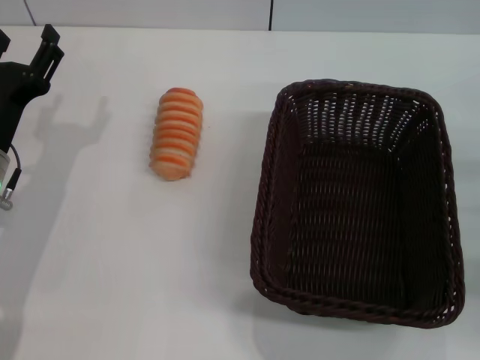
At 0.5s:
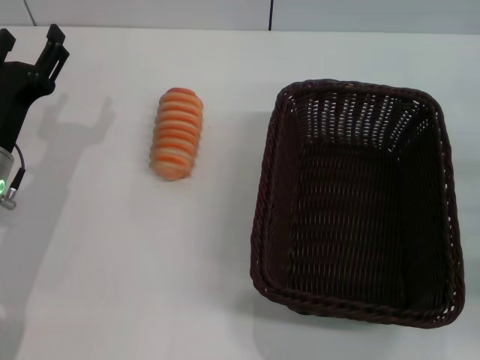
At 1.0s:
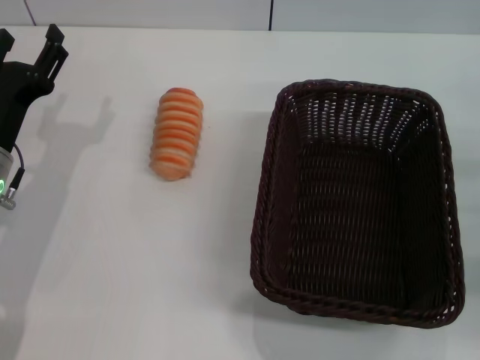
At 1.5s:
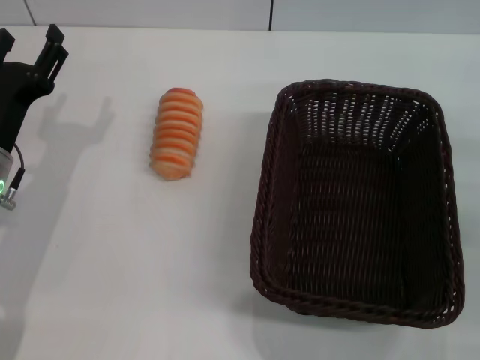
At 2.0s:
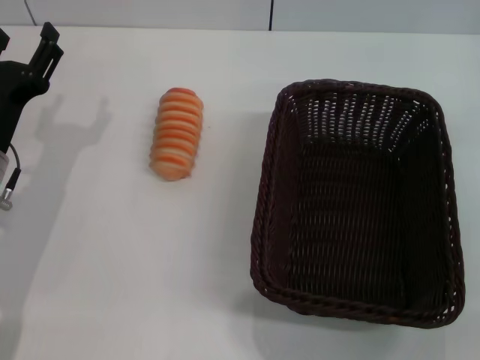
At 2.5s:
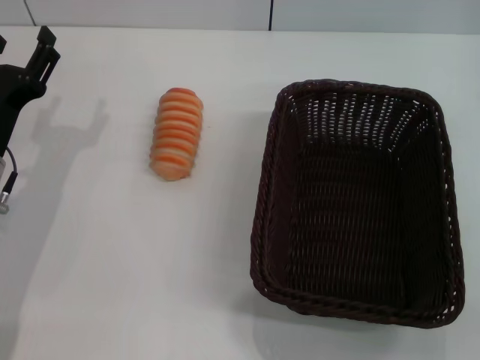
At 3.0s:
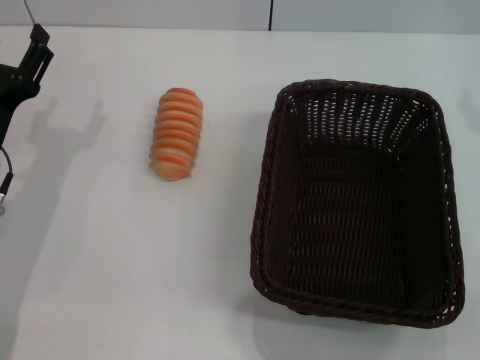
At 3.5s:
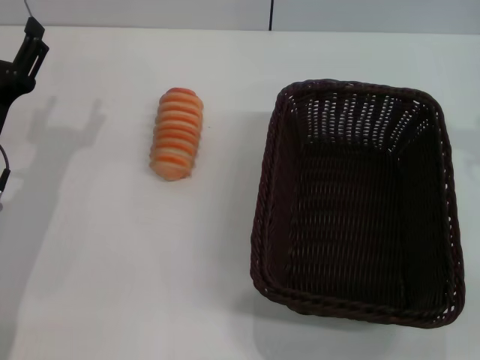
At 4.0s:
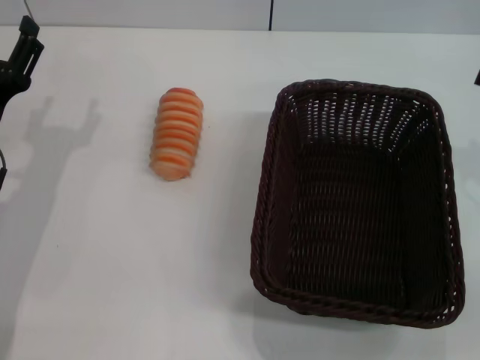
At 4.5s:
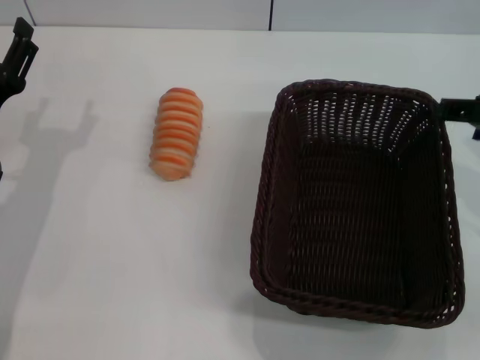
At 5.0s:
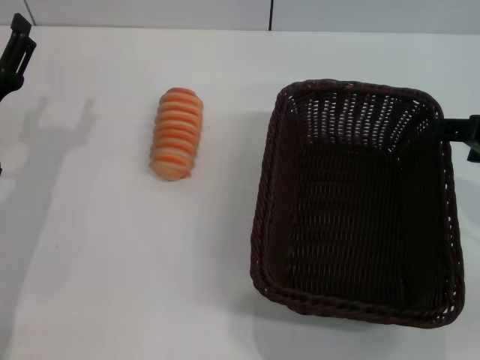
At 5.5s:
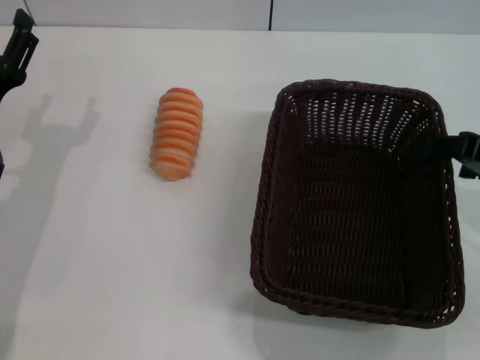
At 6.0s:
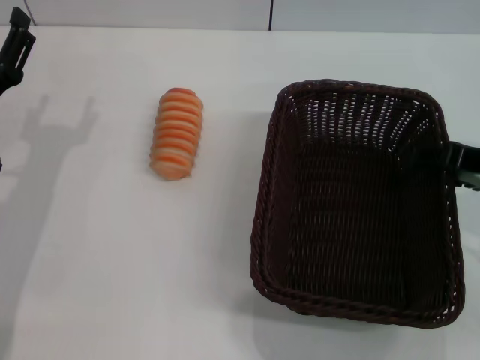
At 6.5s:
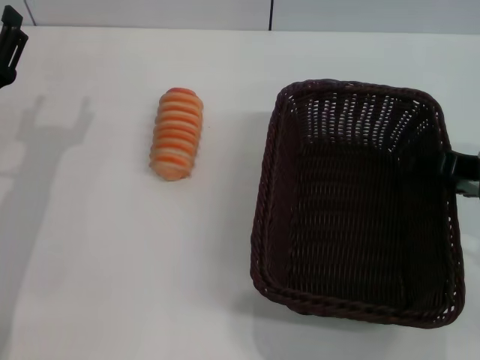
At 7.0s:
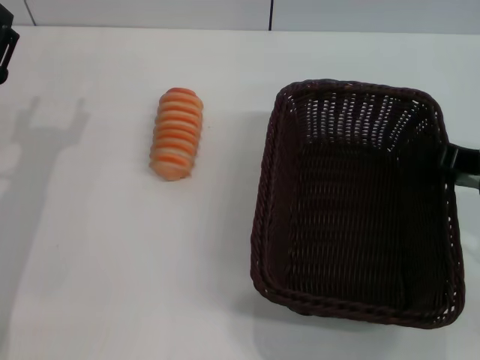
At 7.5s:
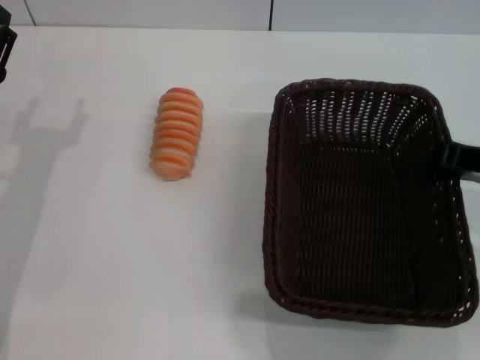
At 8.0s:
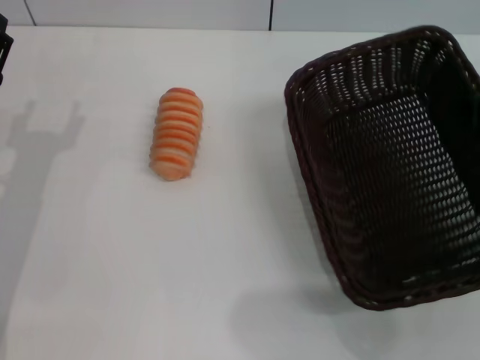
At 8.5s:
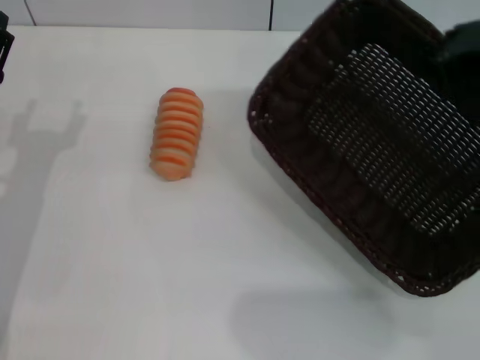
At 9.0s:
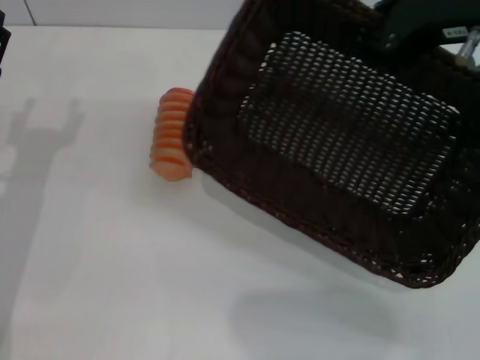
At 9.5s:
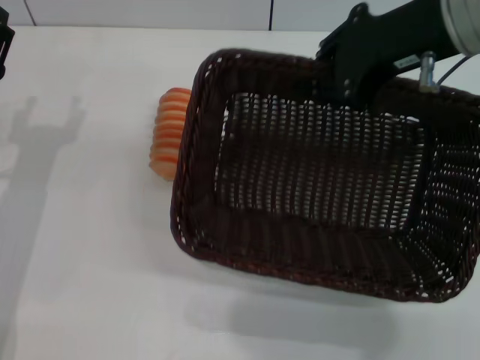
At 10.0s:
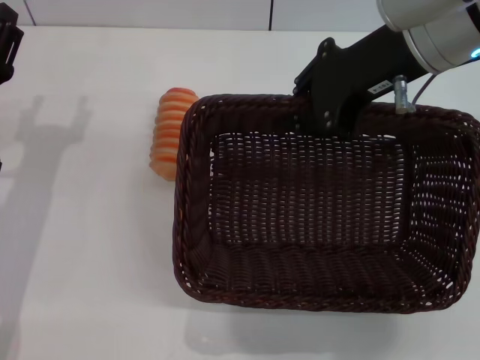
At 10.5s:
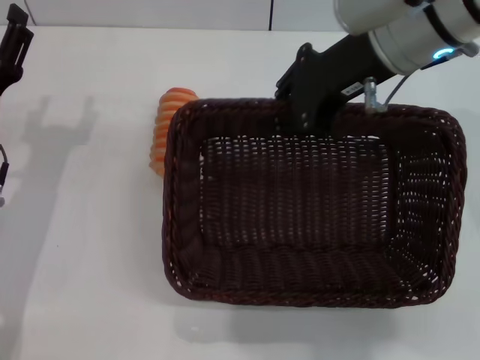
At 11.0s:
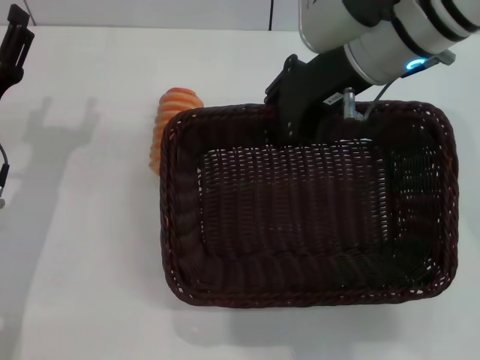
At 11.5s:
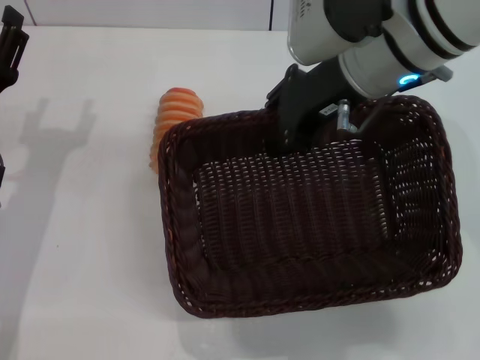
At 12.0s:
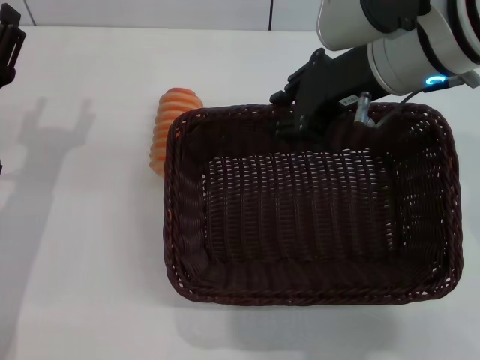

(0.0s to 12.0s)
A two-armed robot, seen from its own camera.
Step, 0.0s - 7.5s: Pick up the dark basket with the right gripper.
0.0s - 2.0s: The right gripper shifts roughly 15 cm upward and to the left.
4.0s - 6.0s: The right gripper is displaced downward by about 5 cm.
6.0s - 8.0s: The right gripper closes its fingers.
8.0s - 10.0s: The right gripper heads to the left, upward and forward, covering some 15 cm.
10.0s - 12.0s: The grippers move only a little.

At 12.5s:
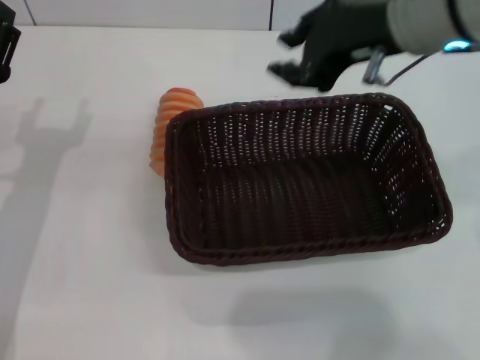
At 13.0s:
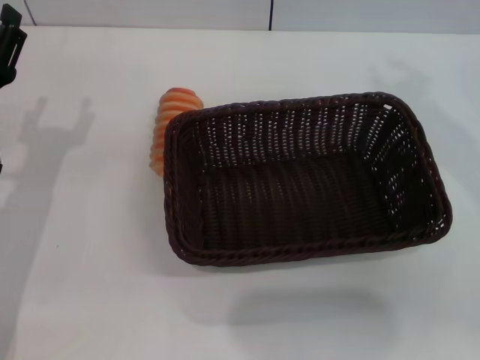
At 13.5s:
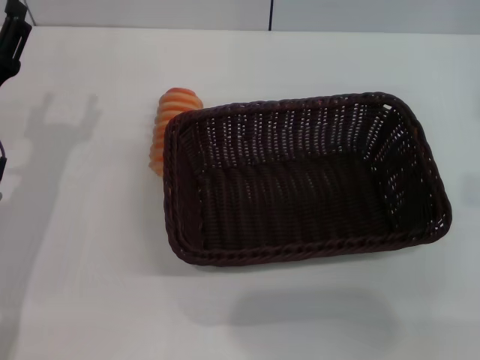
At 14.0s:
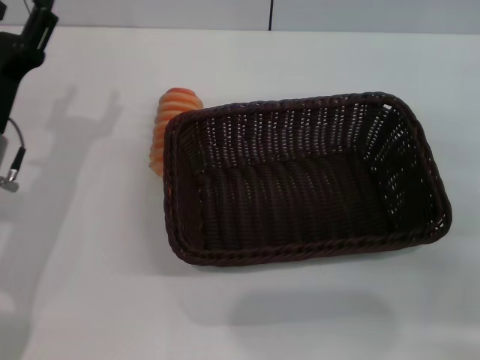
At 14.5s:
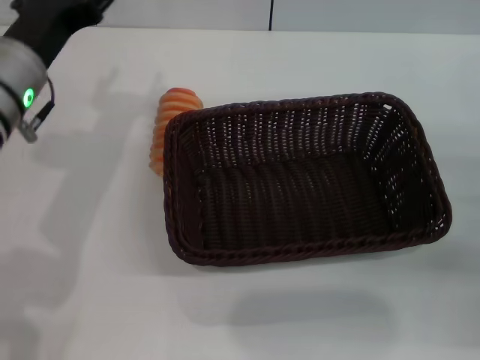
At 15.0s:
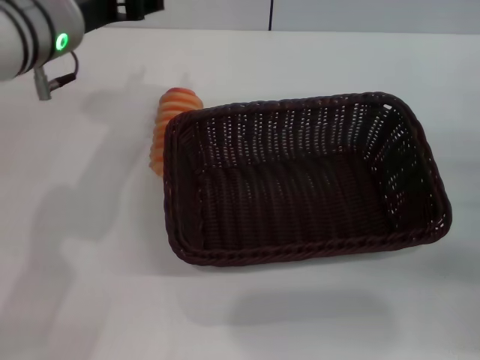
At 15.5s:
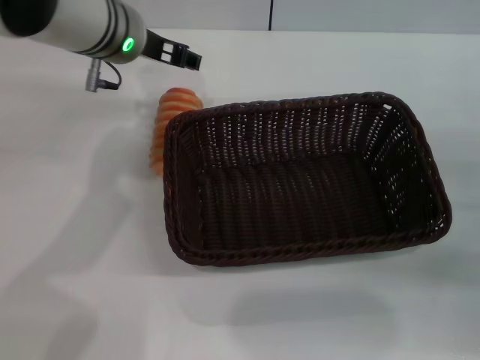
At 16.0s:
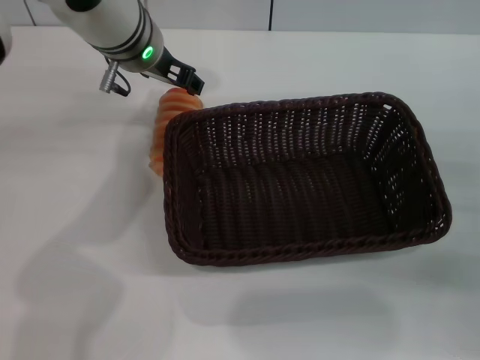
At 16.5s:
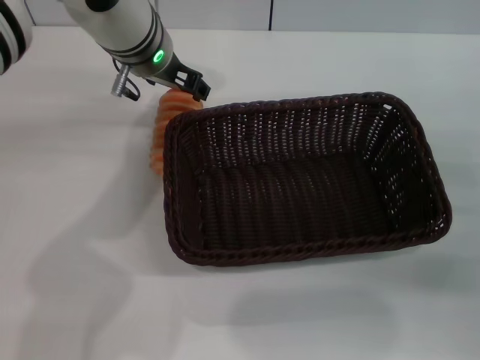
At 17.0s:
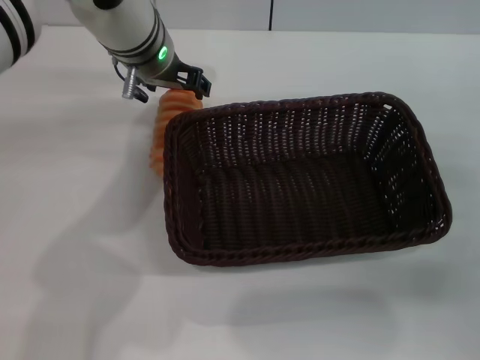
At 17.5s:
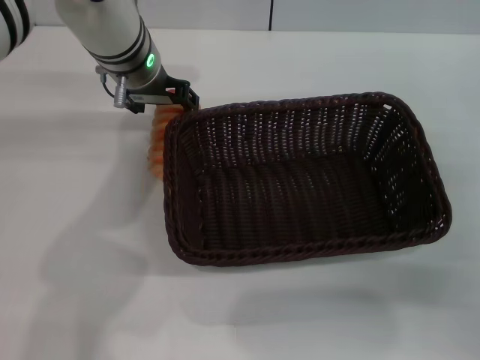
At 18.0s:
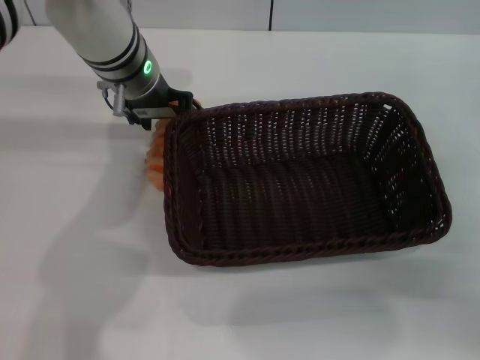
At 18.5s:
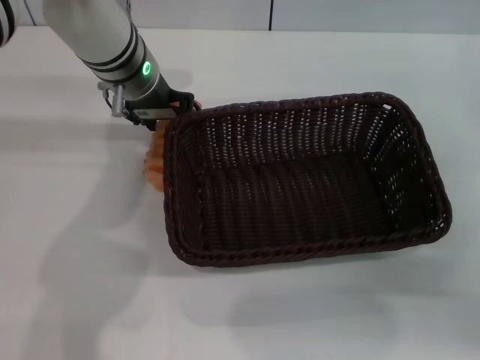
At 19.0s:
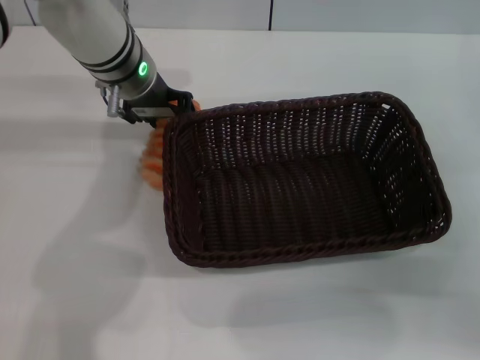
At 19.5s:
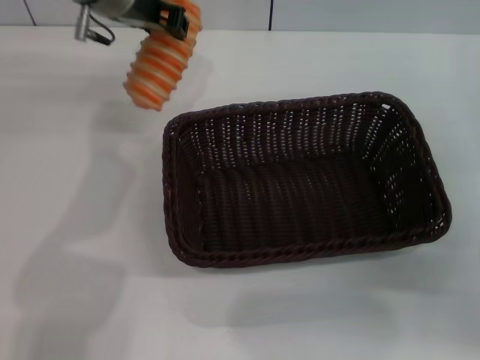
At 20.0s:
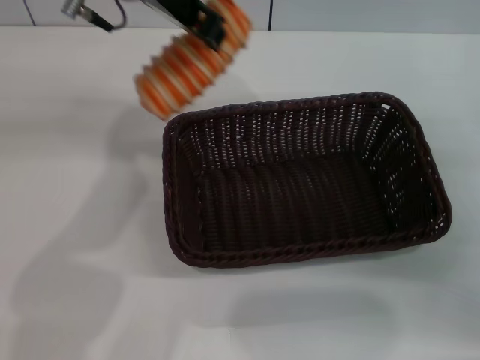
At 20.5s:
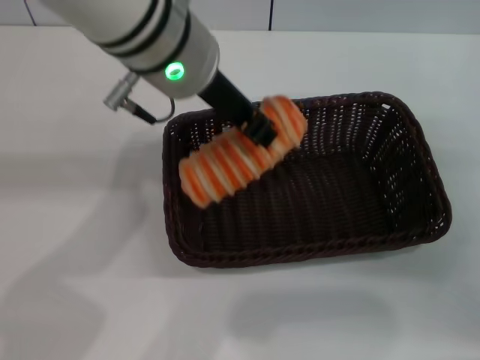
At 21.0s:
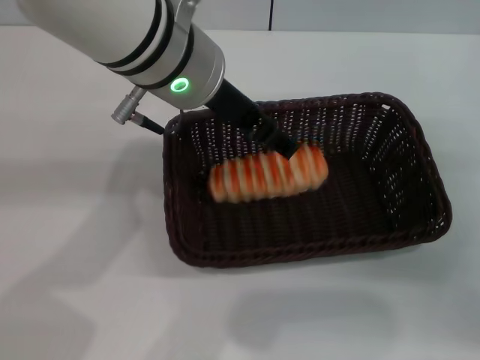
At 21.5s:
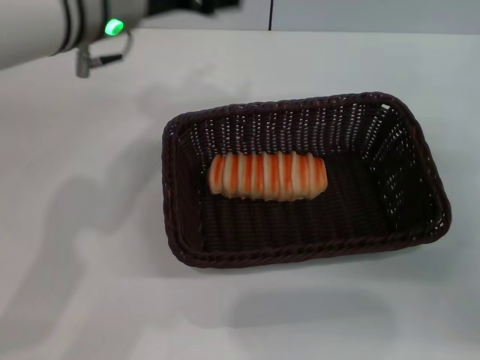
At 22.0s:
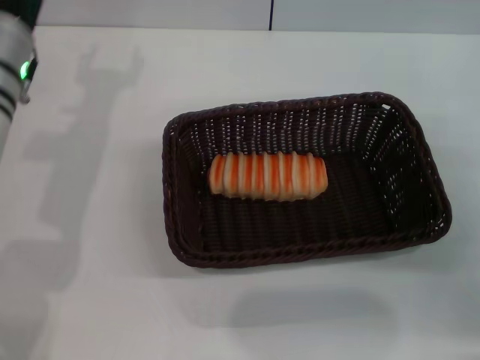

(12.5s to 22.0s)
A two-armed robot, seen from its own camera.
Step, 12.5s - 19.0s: Pick up the long bread with the left gripper.
Step, 19.5s - 21.0s: Place the long bread into the dark basket with the left gripper.
12.5s - 14.5s: The left gripper goes approximately 10 cm upward and to the right; the right gripper goes some 30 cm to the right, downward and backward.
14.5s - 16.5s: The left gripper is displaced forward and to the right by roughly 15 cm.
18.0s - 20.0s: The left gripper is displaced upward by roughly 15 cm, and closes its fingers.
20.0s - 22.0s: The left gripper is displaced downward and to the left by approximately 20 cm, and opens its fingers.

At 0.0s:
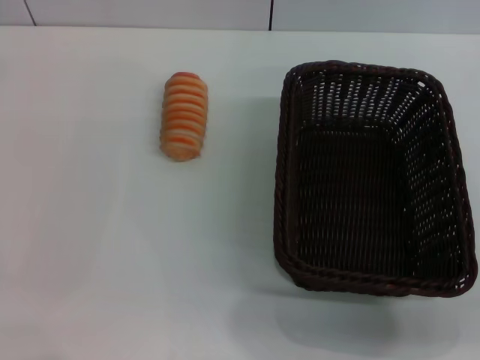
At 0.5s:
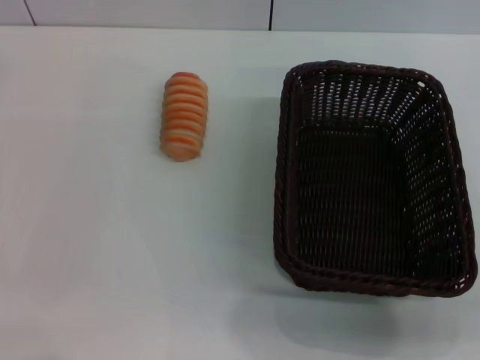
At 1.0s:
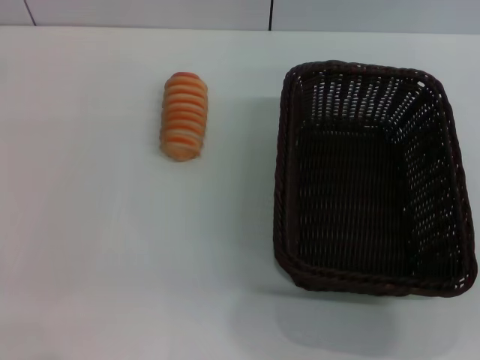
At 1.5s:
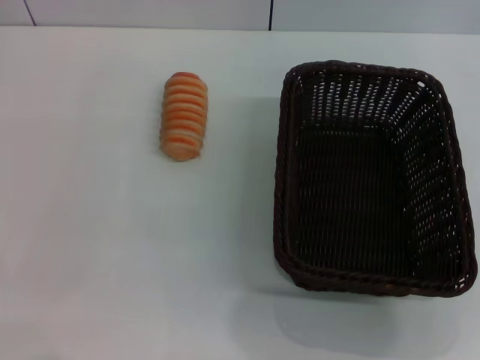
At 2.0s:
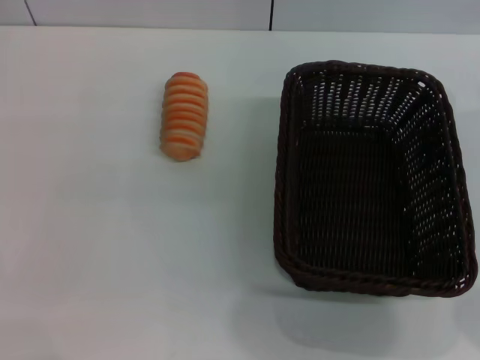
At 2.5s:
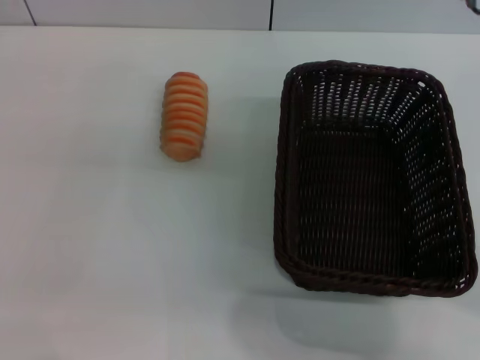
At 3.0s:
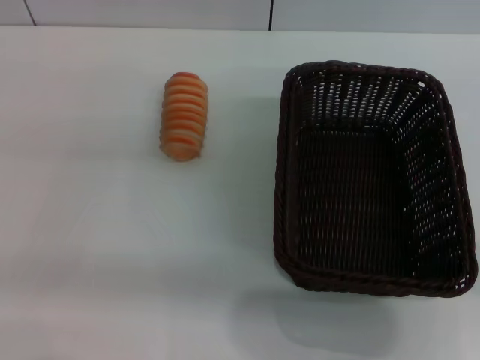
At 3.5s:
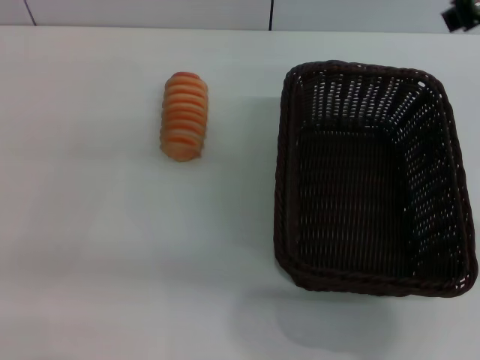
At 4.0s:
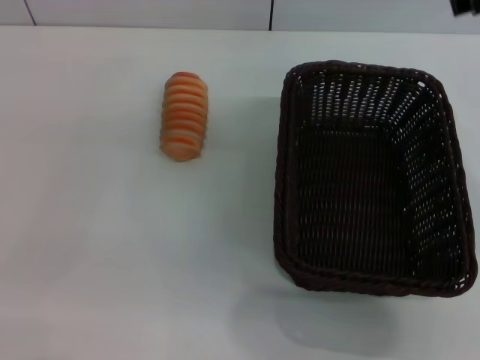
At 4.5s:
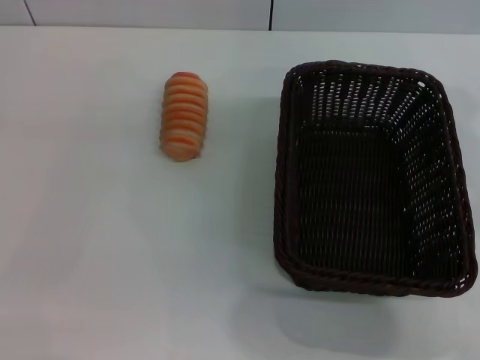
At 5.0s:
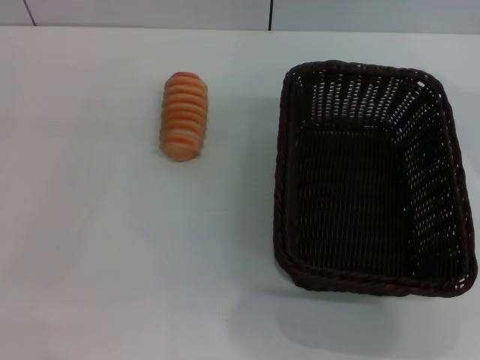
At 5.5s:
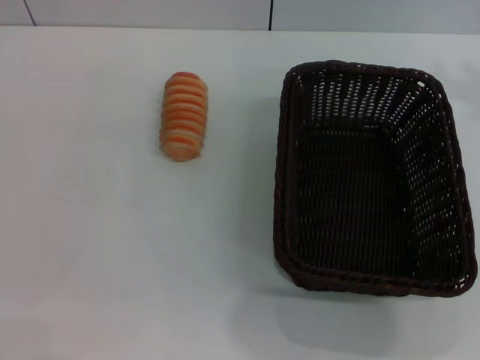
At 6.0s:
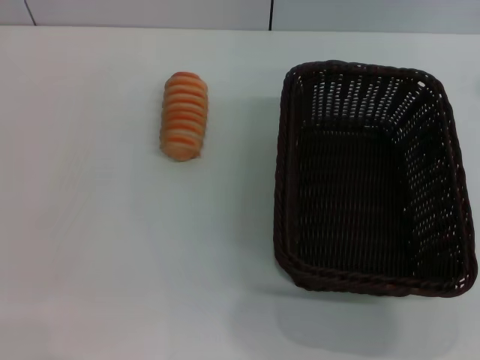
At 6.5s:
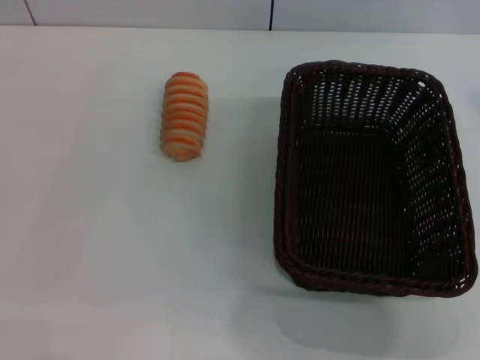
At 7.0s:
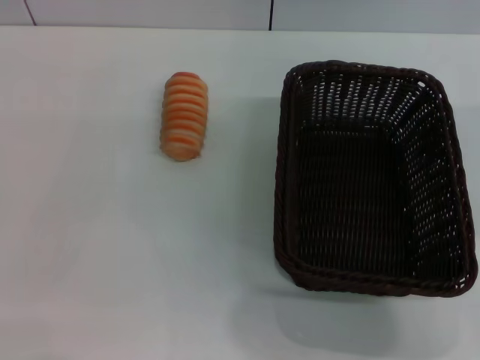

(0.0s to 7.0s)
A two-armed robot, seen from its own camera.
0.0s - 2.0s: The right gripper moves to the left, forward and upward, some 15 cm.
3.5s - 5.0s: The right gripper heads to the right, covering about 10 cm.
